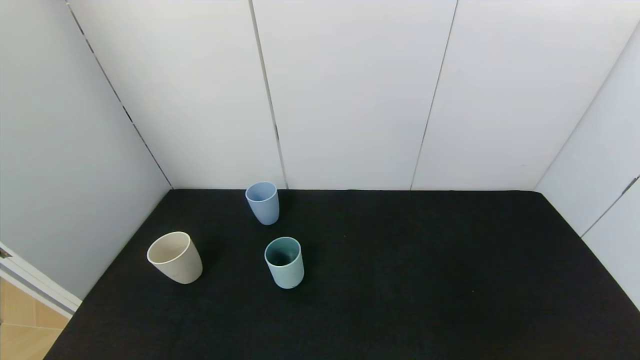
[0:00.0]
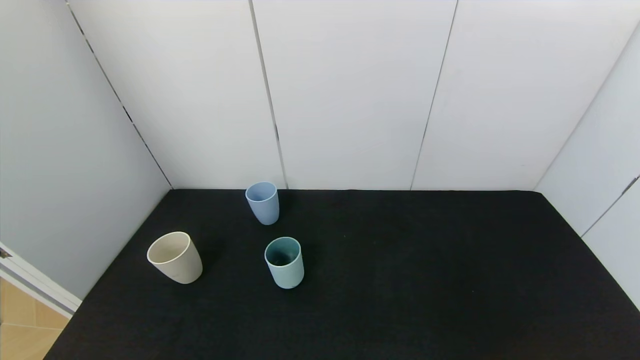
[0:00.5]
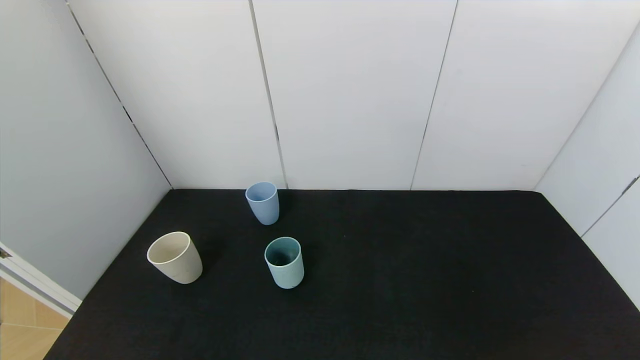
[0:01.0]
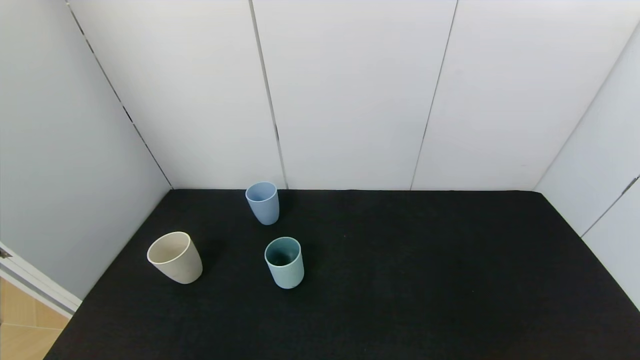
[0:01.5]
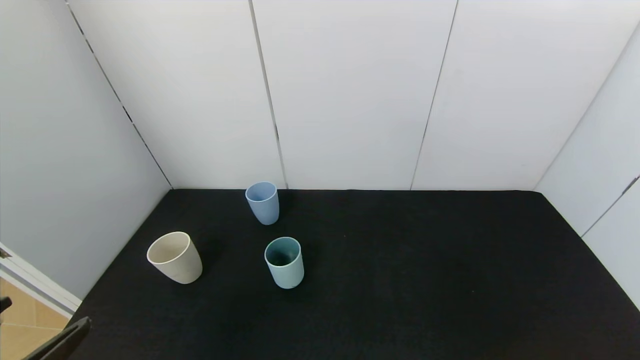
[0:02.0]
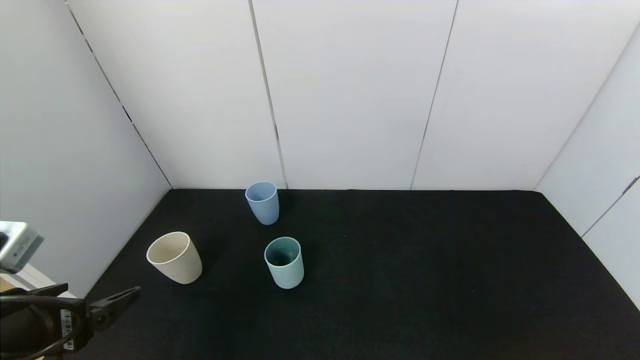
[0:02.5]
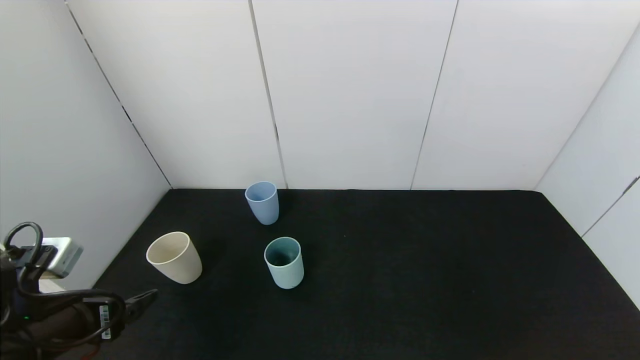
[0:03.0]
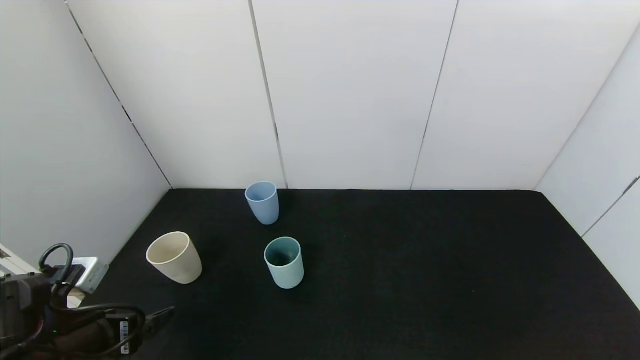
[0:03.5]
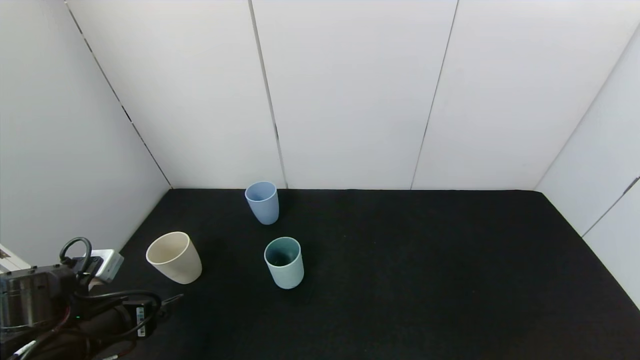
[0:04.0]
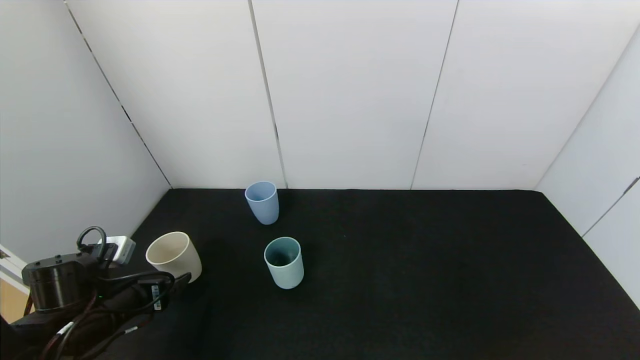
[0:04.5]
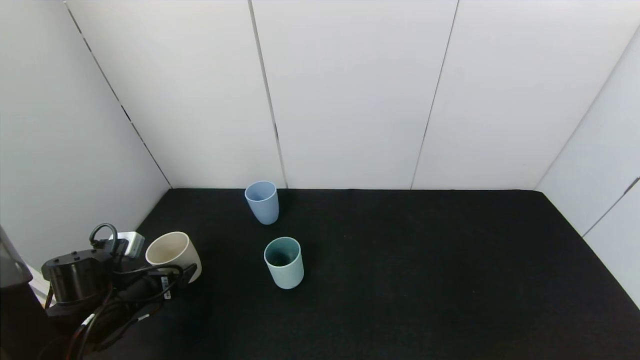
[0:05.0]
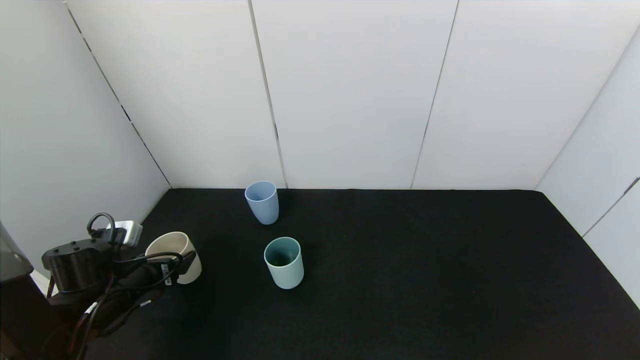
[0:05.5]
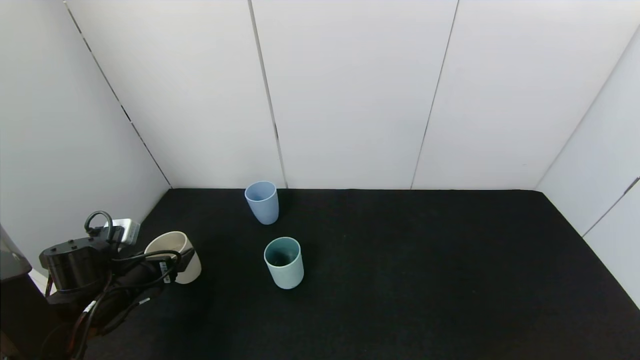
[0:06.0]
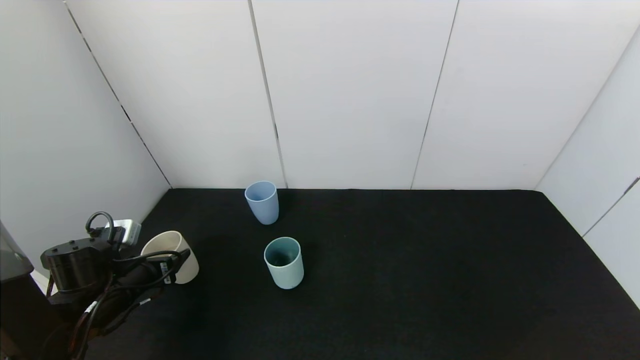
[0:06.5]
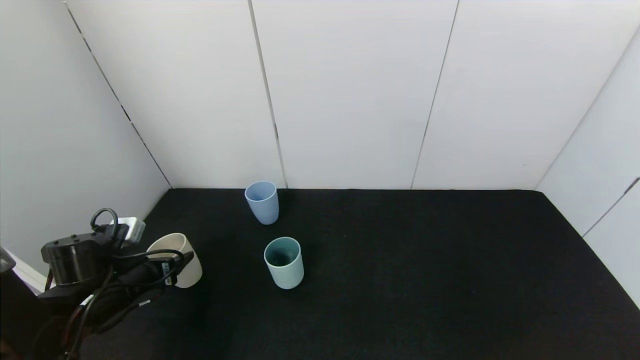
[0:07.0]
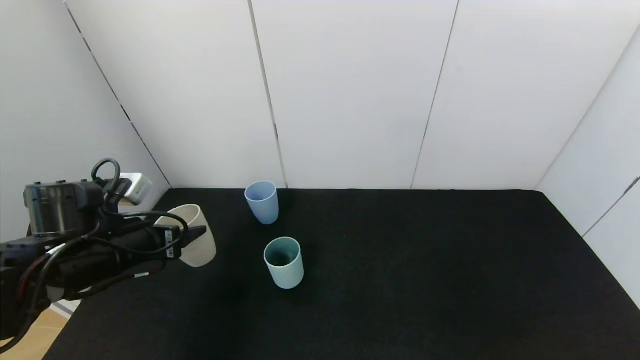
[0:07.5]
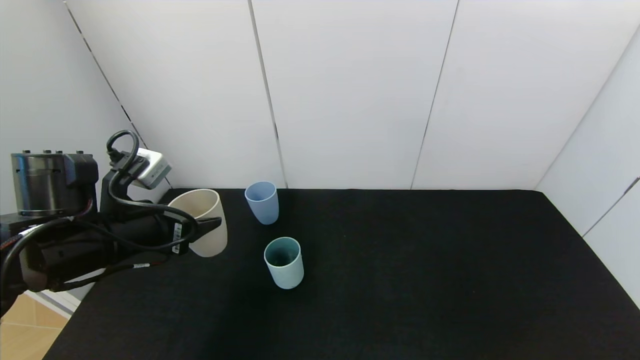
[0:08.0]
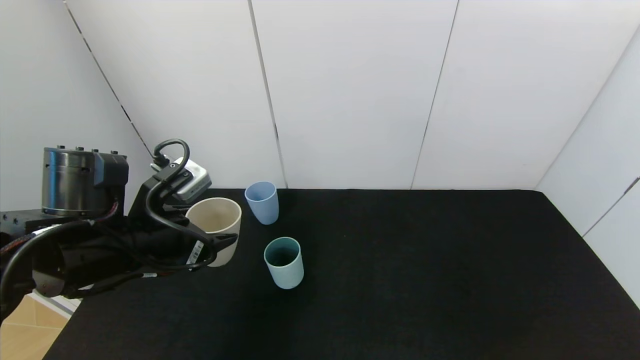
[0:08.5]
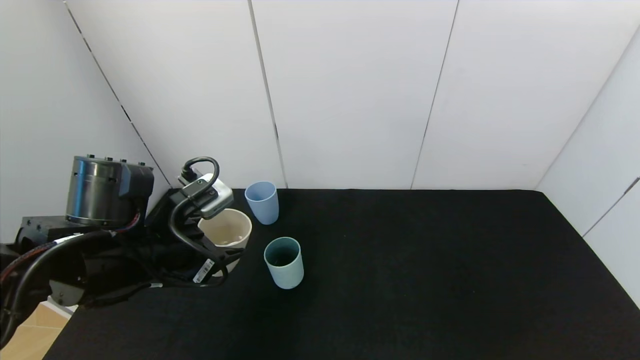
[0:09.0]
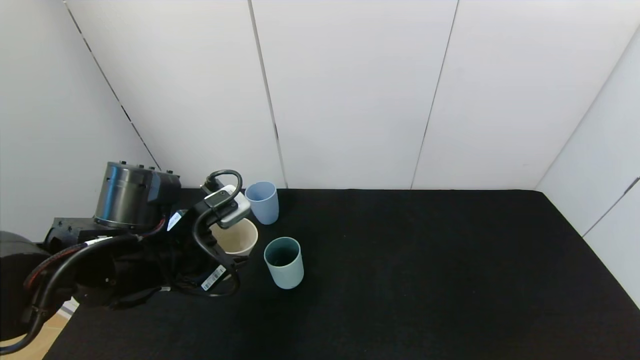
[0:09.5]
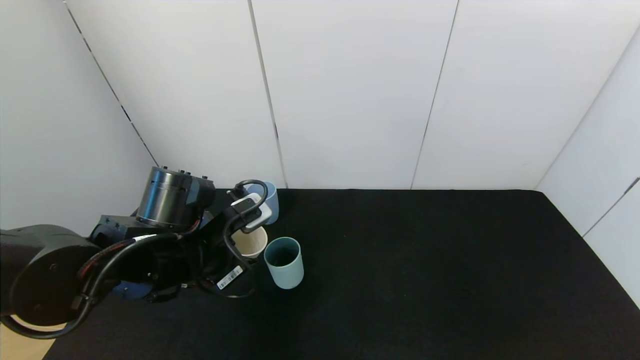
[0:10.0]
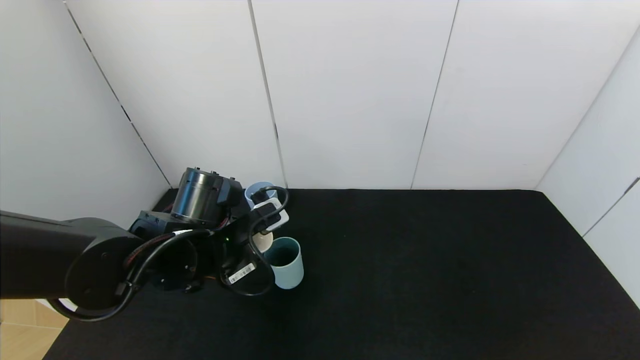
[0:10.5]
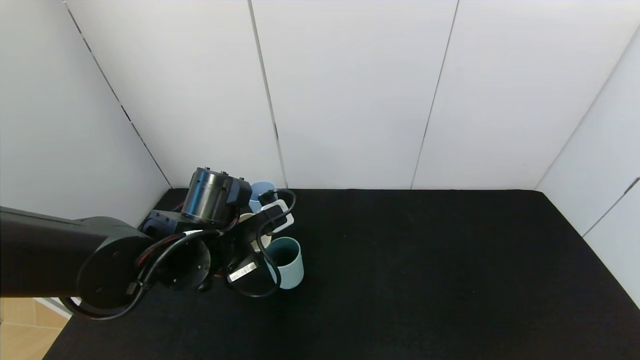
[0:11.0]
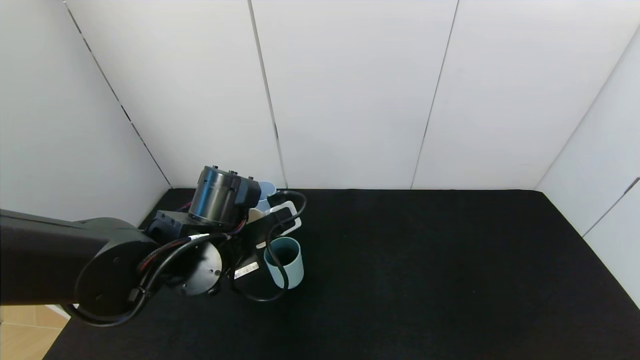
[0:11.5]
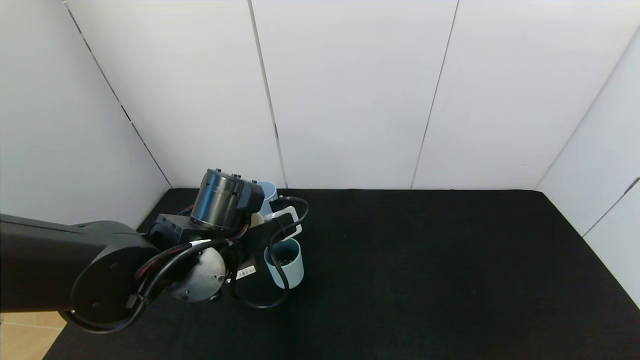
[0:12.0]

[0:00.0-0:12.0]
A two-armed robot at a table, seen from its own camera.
Task of the whole recording: use the gripper to pour the water into the other two cups on black table.
Step, 0:00.0 to 0:07.0: Pick up the gray plastic cup with left gripper.
0:02.0 to 0:04.0: The left gripper is displaced forward and downward by about 20 cm.
0:04.0 to 0:06.0: The left gripper goes about 10 cm forward.
0:06.0 to 0:08.0: The left gripper goes roughly 15 cm upward and to the right, and closes.
0:08.0 to 0:10.0: The left gripper moves to the right, roughly 10 cm.

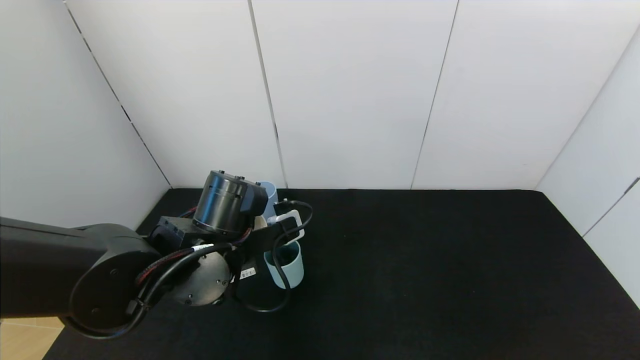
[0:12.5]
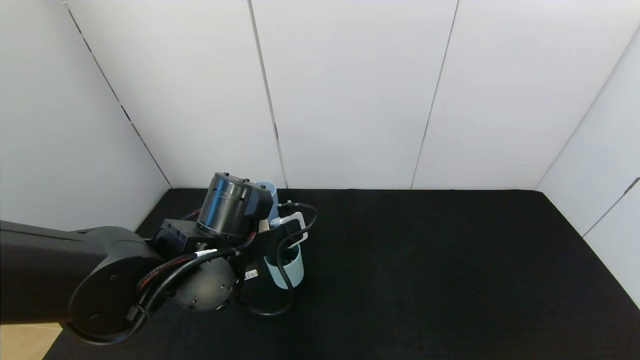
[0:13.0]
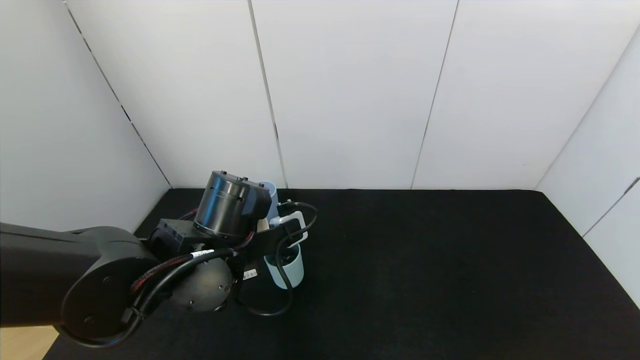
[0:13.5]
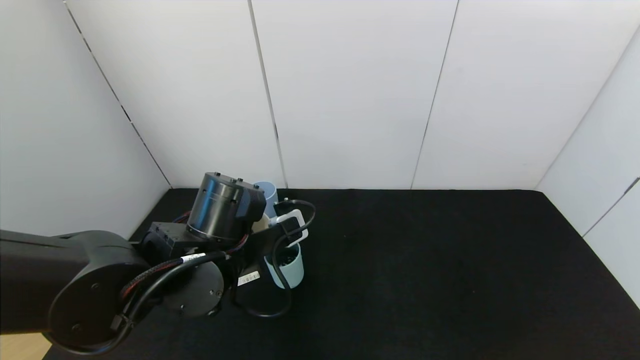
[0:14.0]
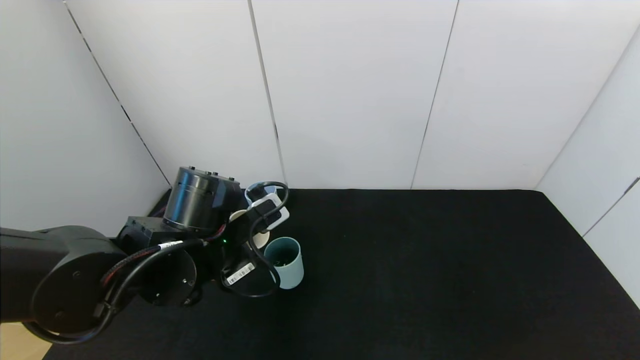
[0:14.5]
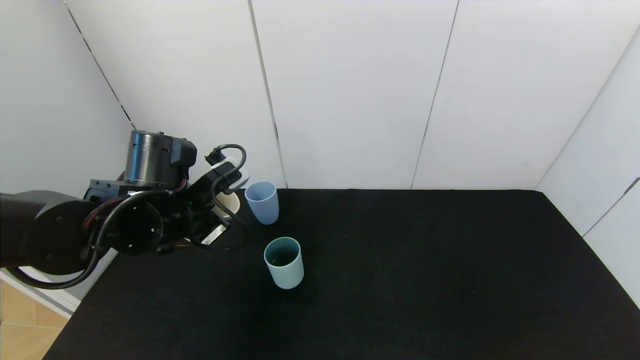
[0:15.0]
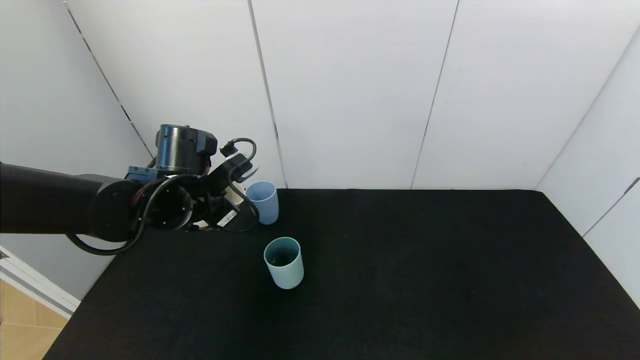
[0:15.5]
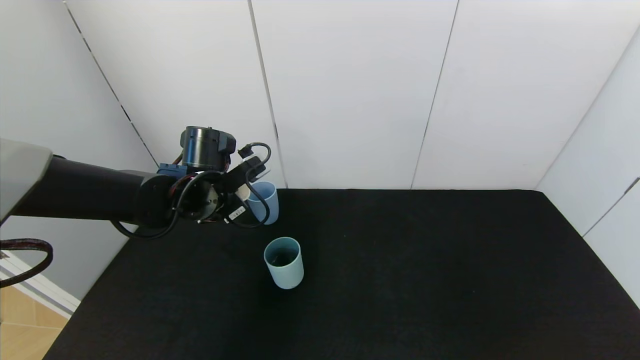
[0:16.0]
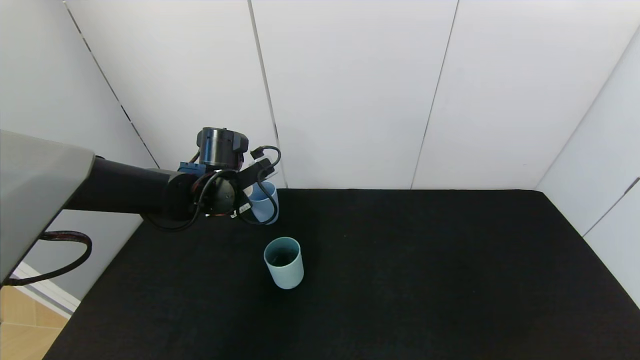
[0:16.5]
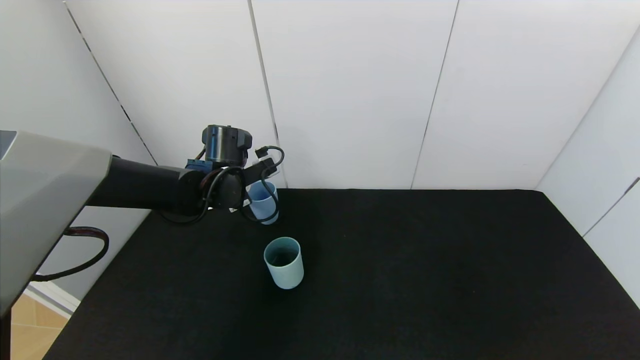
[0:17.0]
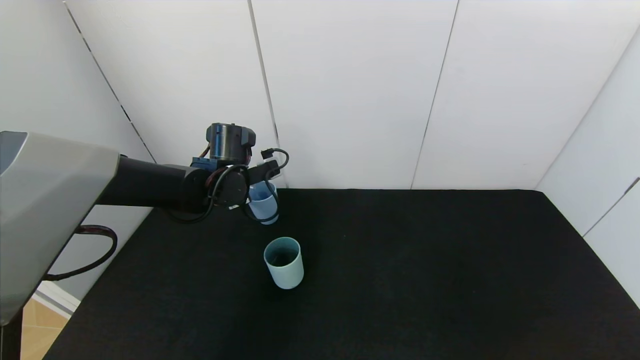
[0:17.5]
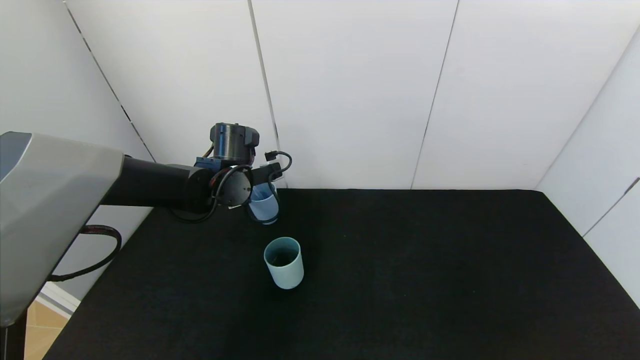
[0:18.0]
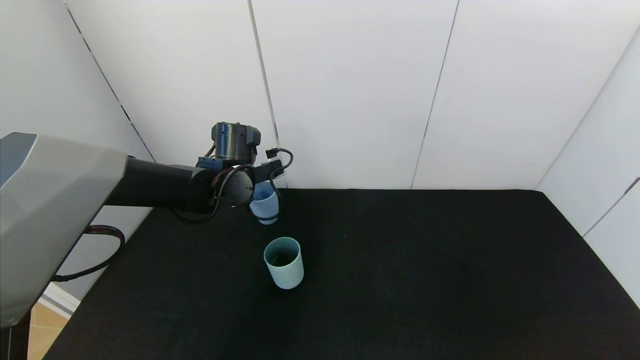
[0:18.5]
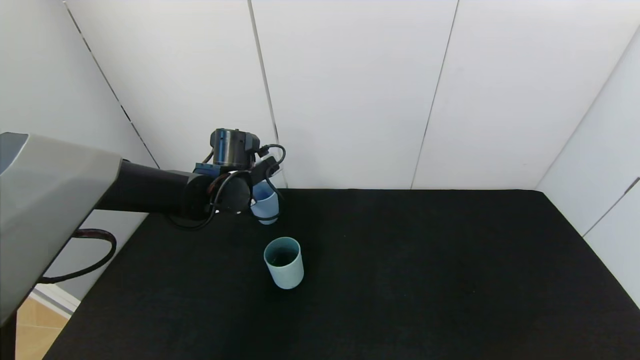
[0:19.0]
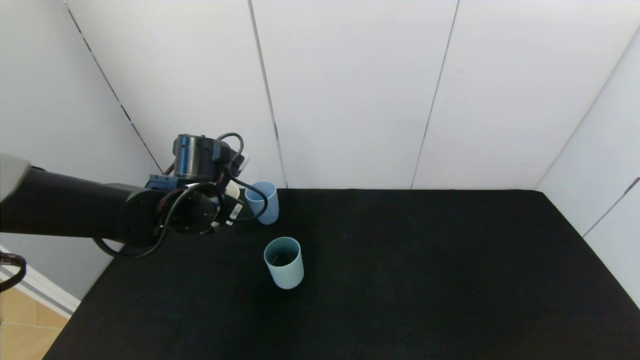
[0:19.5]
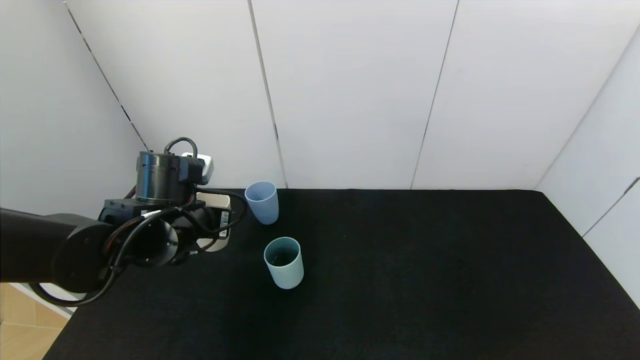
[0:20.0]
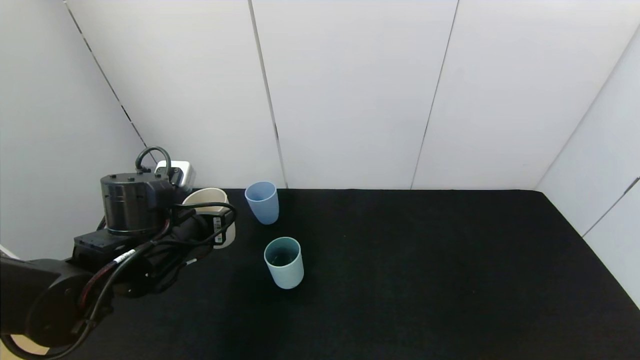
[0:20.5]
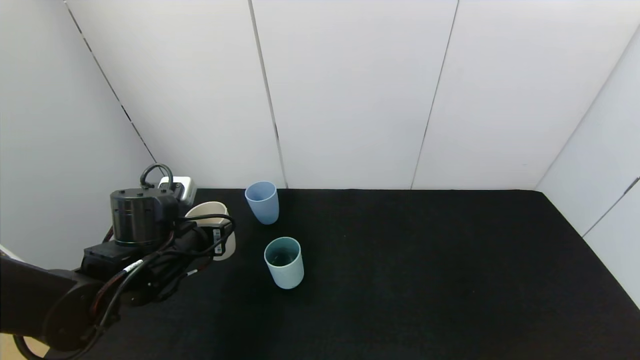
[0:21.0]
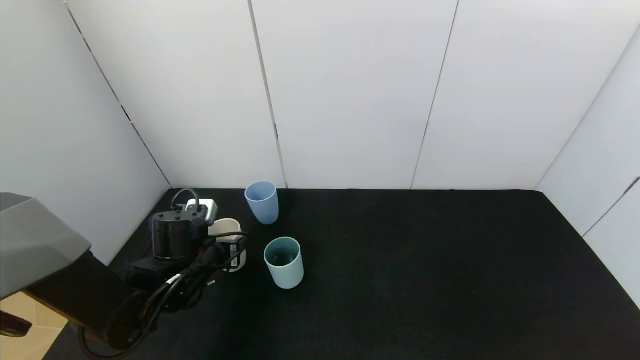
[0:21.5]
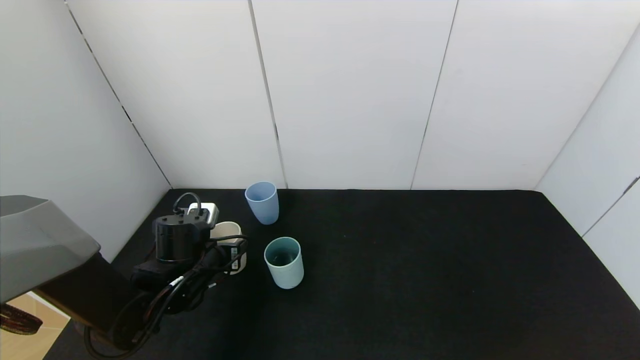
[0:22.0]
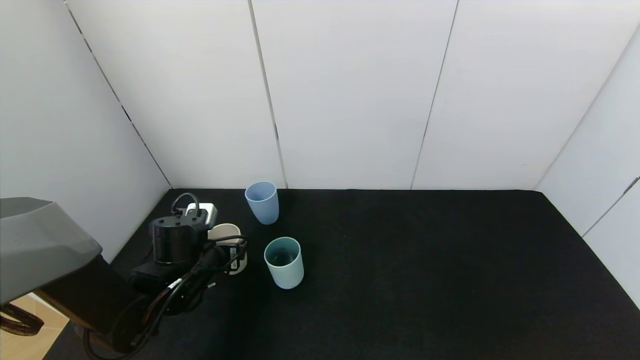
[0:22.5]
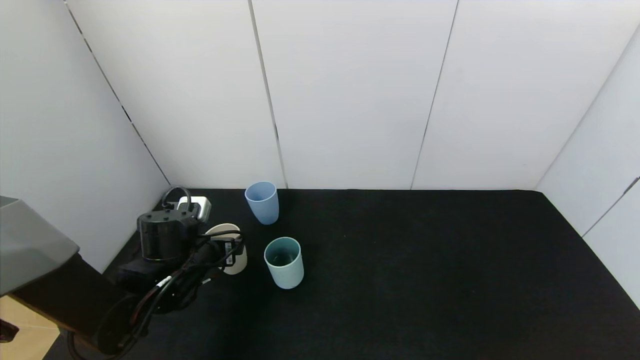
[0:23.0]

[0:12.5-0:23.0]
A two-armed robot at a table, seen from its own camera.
Task of the whole recording: use the gripper to pour the water into the other two cups on black table.
Step, 0:12.5 to 0:14.5: Pour water into the green plastic cup with left gripper.
Step, 0:15.0 to 0:19.0: Pour water into the blue plastic cup with left gripper.
Step, 0:19.5 to 0:23.0: Place the gray plastic cup on the table with left gripper.
0:14.5 to 0:16.5: The left gripper heads forward, covering approximately 15 cm.
0:16.5 to 0:19.0: The grippers stay close to where they were, moving slightly.
0:19.0 to 0:21.0: The left gripper shifts roughly 15 cm backward.
0:21.0 to 0:23.0: The left gripper opens its fingers.
